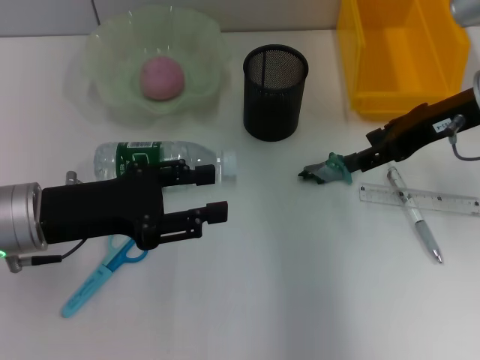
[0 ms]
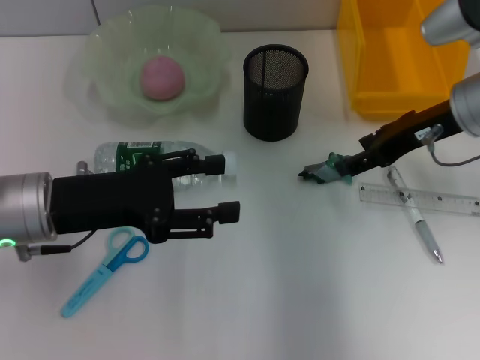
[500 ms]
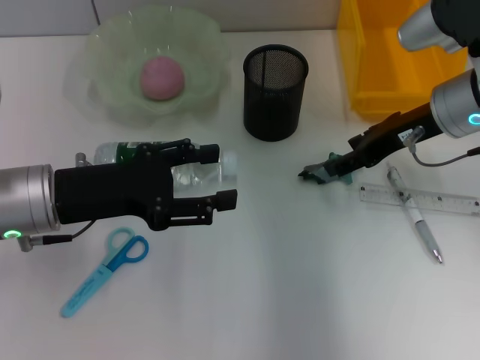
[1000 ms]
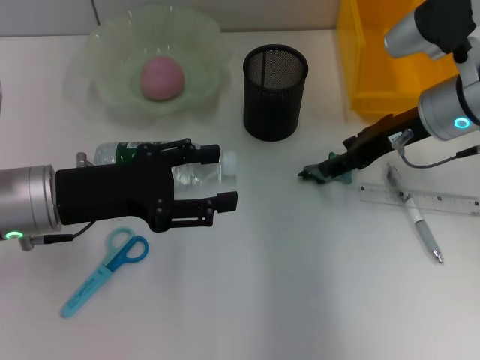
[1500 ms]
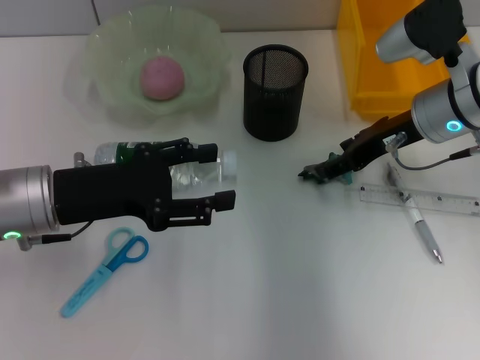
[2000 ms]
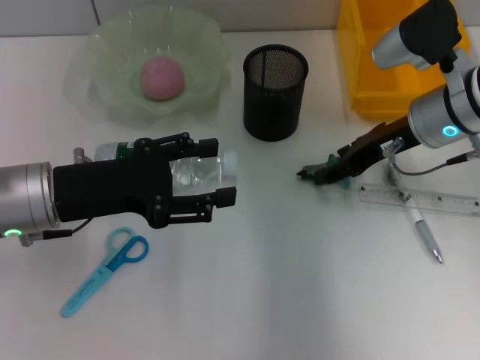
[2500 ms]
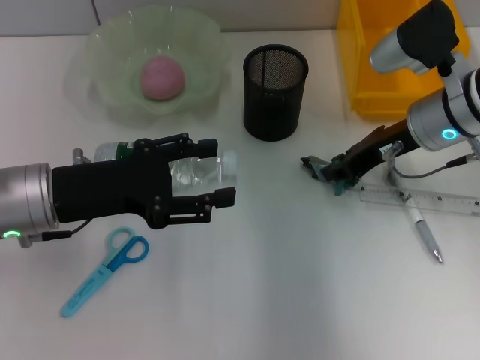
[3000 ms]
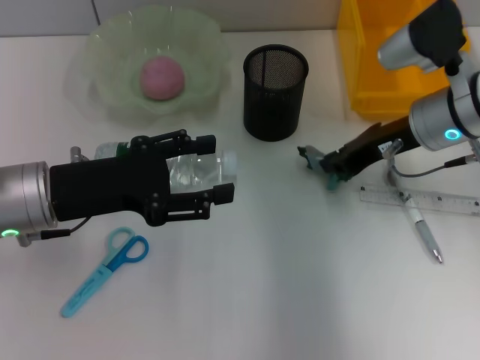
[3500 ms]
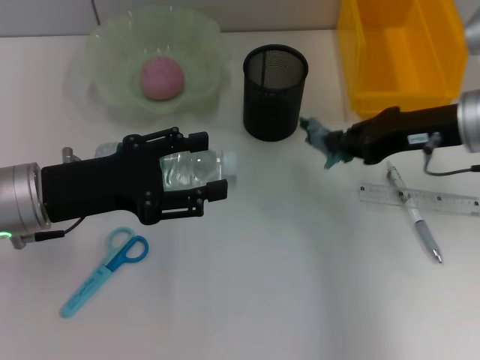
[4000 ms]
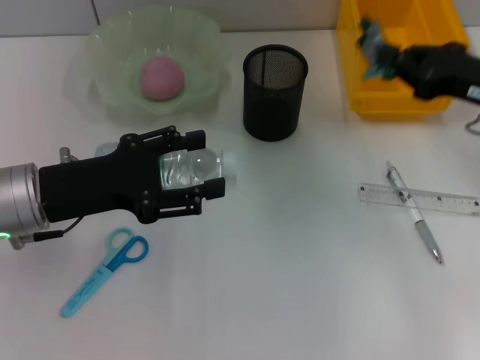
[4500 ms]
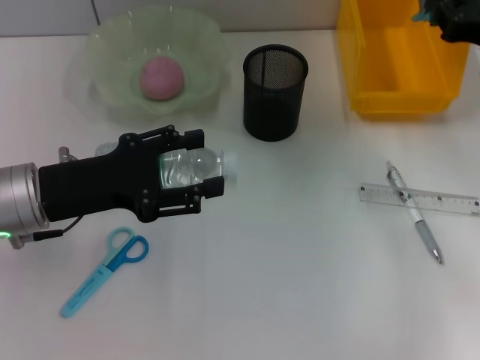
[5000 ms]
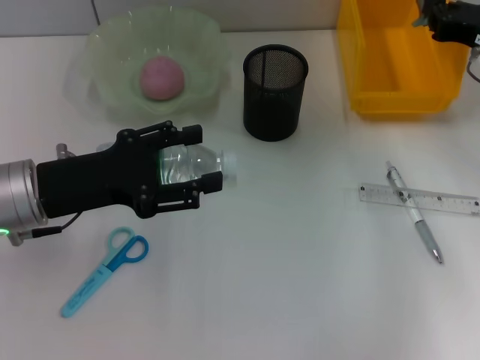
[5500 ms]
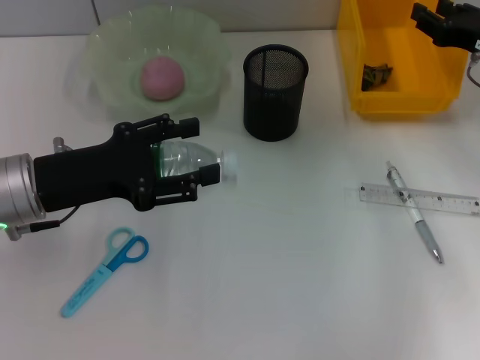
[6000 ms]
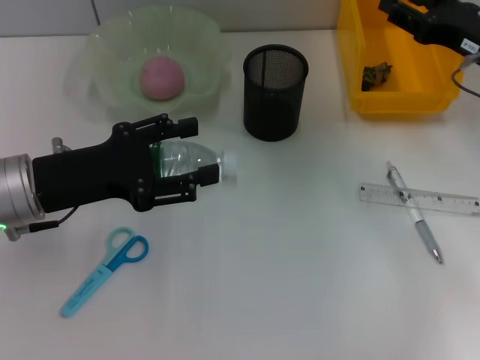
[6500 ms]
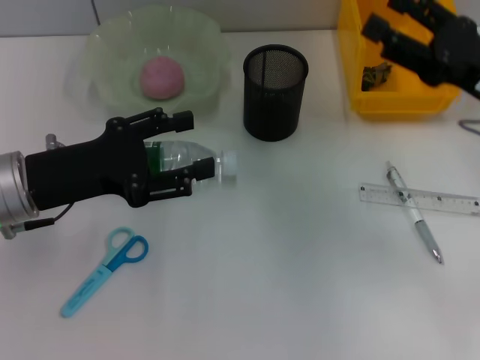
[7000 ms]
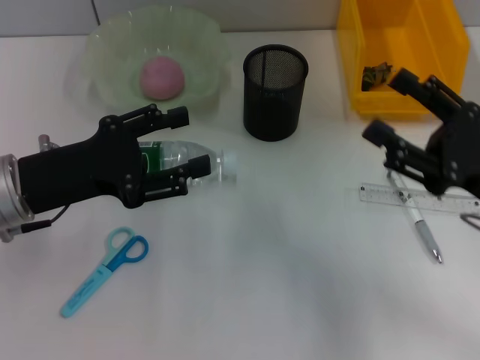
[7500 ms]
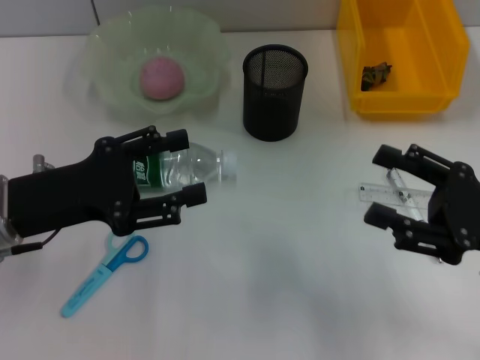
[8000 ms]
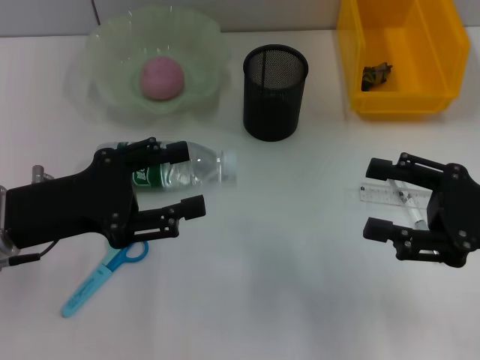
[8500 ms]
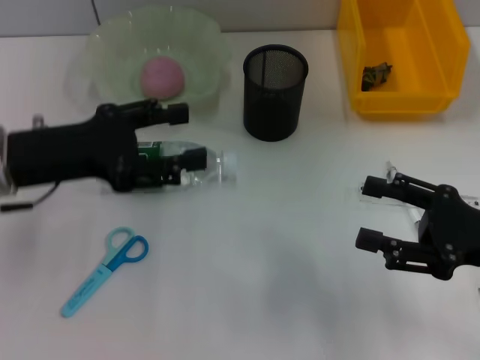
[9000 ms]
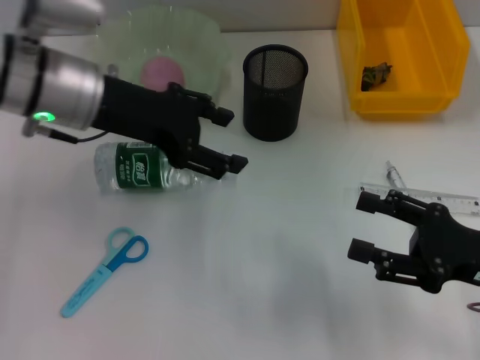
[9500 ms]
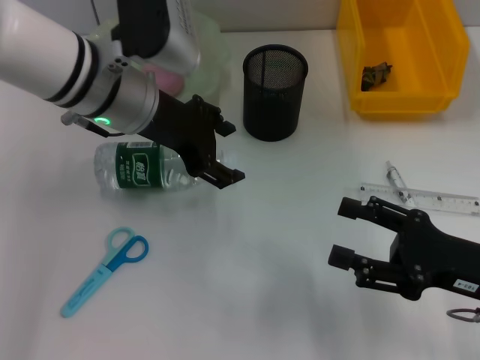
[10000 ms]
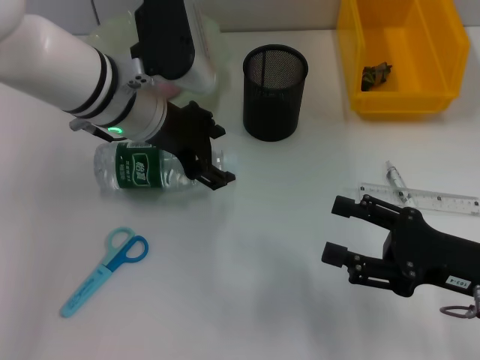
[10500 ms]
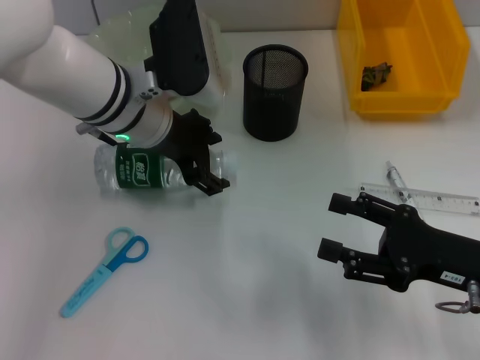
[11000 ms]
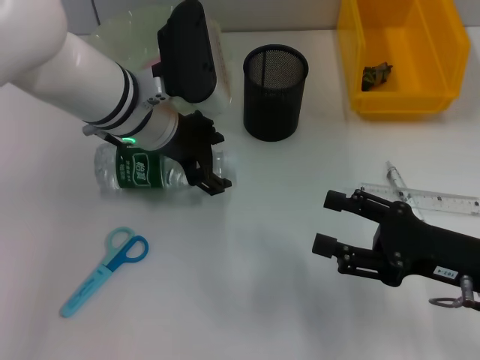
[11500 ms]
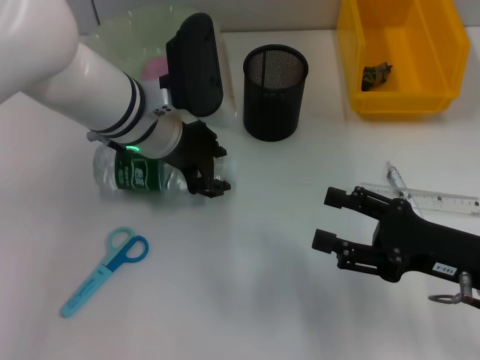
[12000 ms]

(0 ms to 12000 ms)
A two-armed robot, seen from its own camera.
Step, 0 ms - 3000 ms: Grab the plastic with the right hand.
Step, 3500 ms - 5500 ms: Place the plastic into the trash can with the right hand.
0 ms - 2000 ms: The right gripper shifts some 5 cm downward.
2000 ms - 4000 ms: The right gripper shifts by about 5 cm, and closes its fingers.
4000 ms - 6000 ms: The right gripper is displaced to the right by about 5 cm.
6000 ms - 8000 ms: The right gripper travels backward by approximately 15 cm, and opens.
8000 ms - 10000 ms: The left gripper heads to the right, forward and upward, covering roughly 15 cm.
10000 ms - 12000 ms: The left gripper changes place by approximately 5 cm.

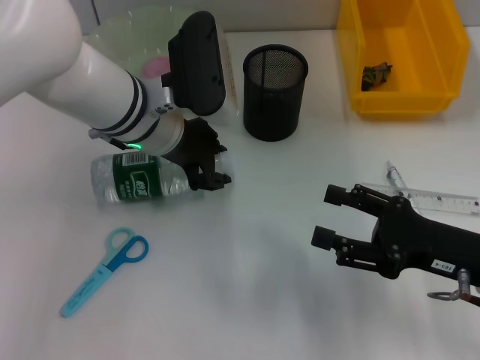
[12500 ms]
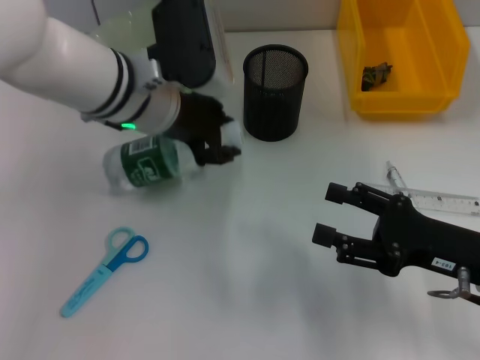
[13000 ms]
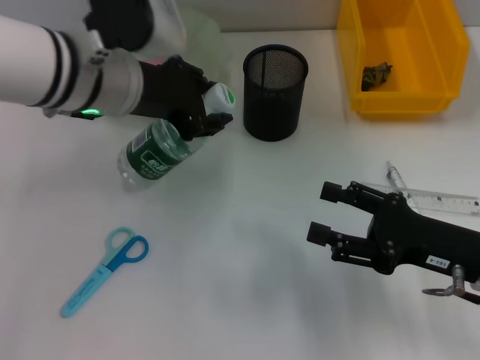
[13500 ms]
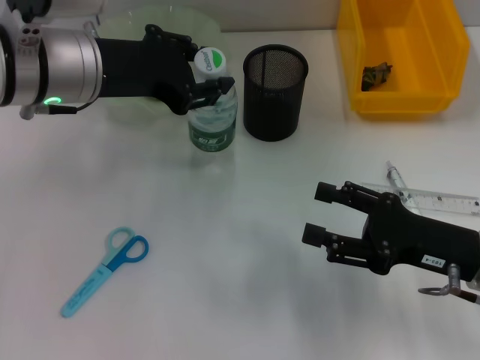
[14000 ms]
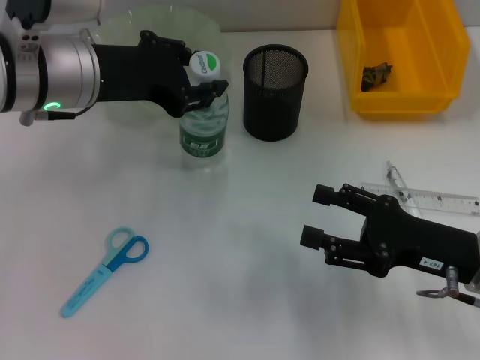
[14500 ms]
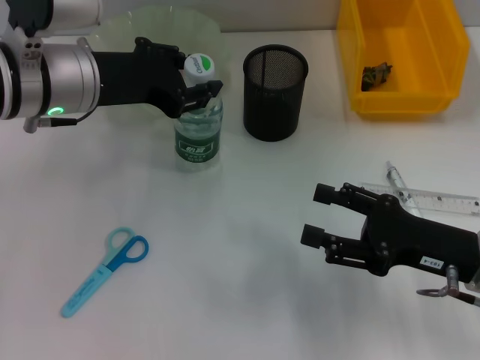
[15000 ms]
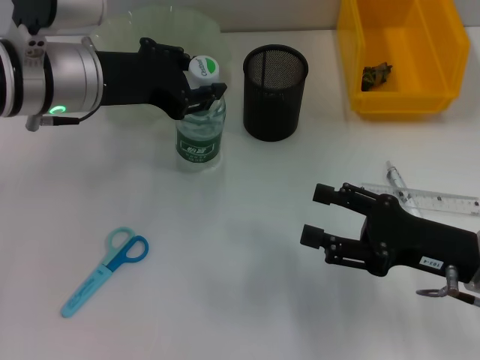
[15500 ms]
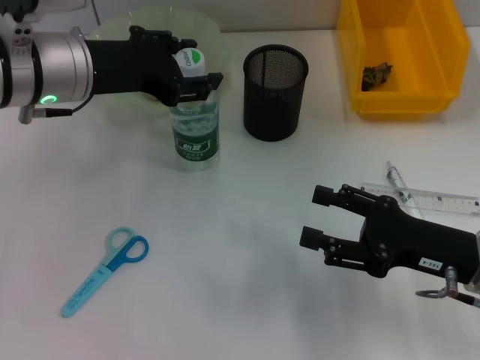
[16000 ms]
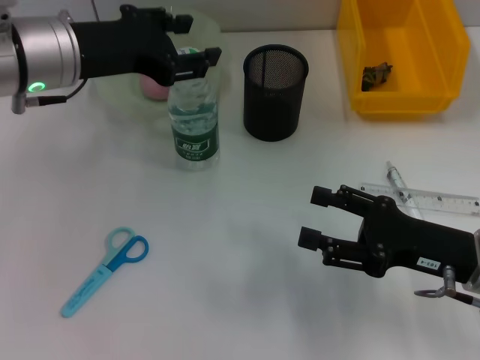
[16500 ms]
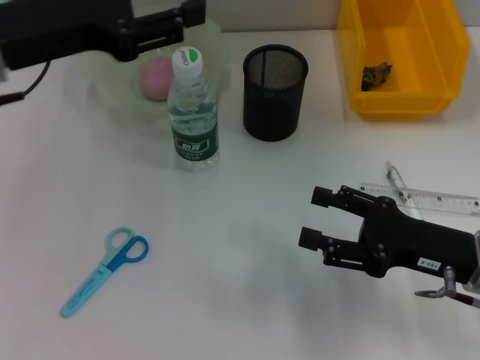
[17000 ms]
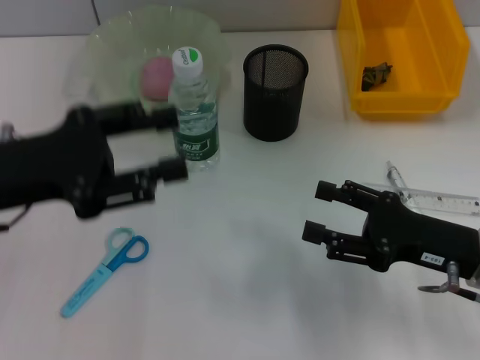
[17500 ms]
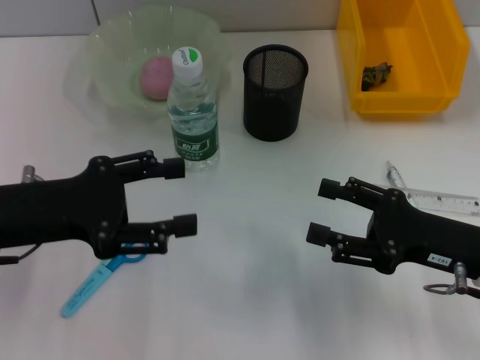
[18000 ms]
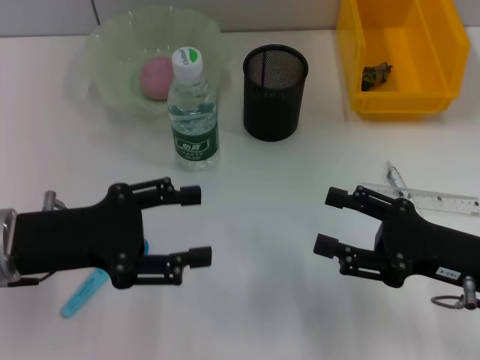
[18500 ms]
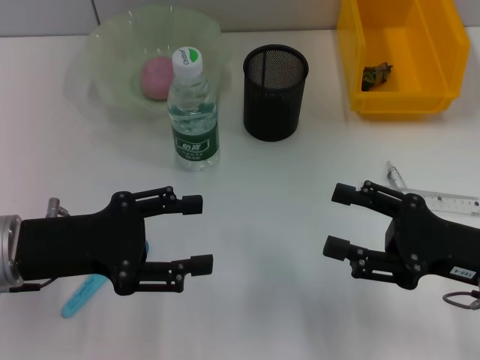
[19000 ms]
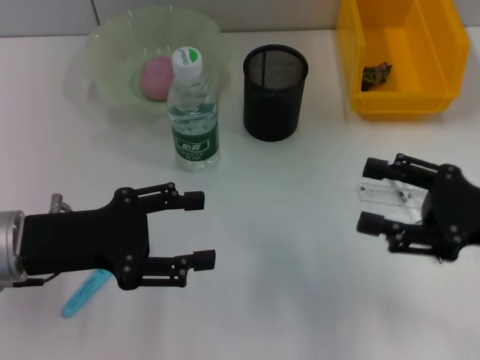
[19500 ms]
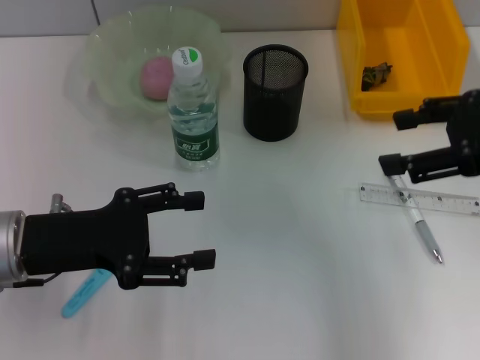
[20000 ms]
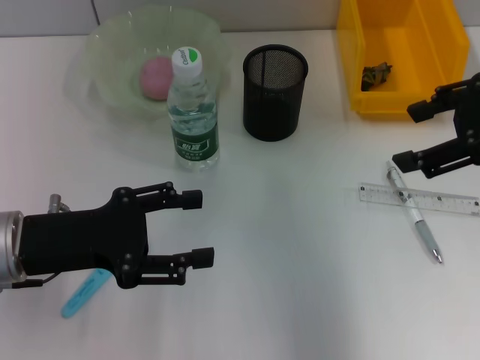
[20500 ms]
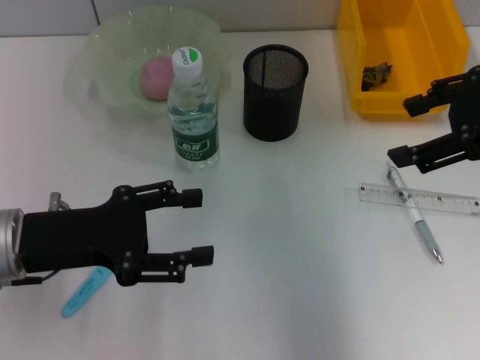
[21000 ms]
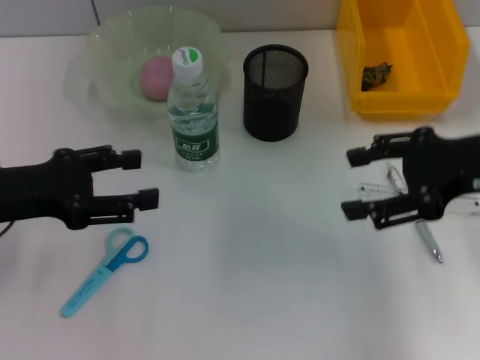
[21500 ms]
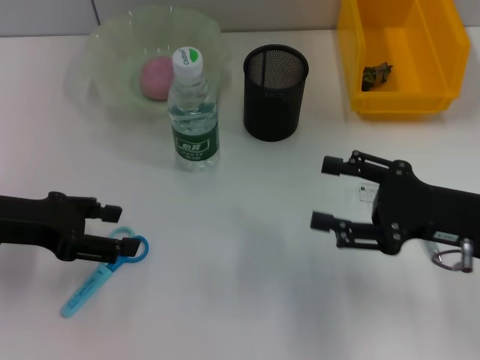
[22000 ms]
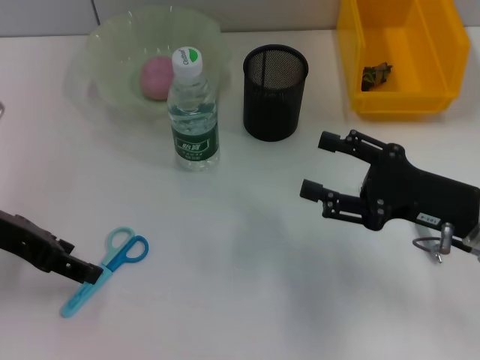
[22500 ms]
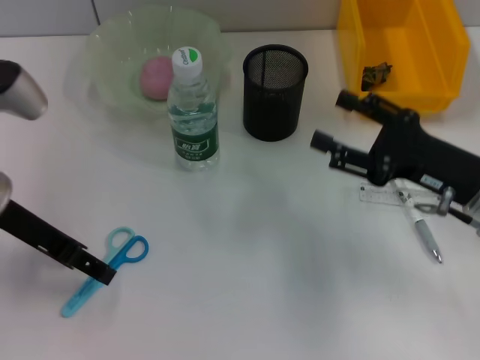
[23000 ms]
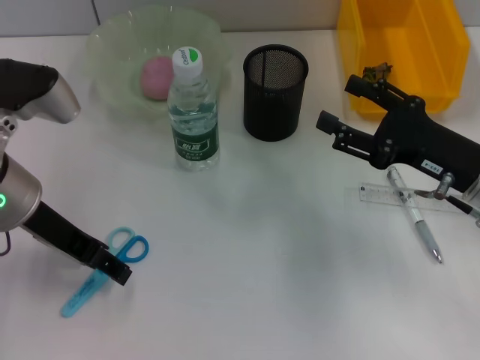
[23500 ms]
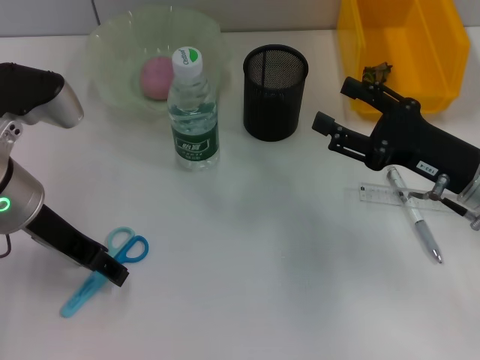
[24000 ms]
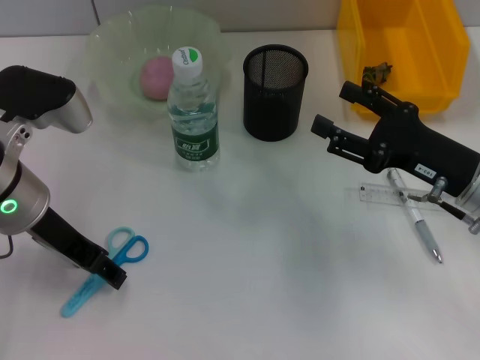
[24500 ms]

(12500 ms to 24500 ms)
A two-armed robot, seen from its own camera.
Step, 12500 ms - 16000 ms: Place the water bottle on the table with the left hand.
12500 ms - 14500 ms: The left gripper travels to the left and upward by approximately 10 cm.
14500 ms - 16500 ms: The grippers move only a little.
16500 ms - 18500 ms: The left gripper is displaced backward, downward and to the left by some 15 cm.
18500 ms - 20500 ms: The right gripper goes some 20 cm upward and forward.
20500 ms - 22500 ms: The right gripper goes approximately 20 cm downward. The left gripper heads forward, covering some 5 cm.
22500 ms - 24500 ms: The left gripper travels to the right by about 5 cm.

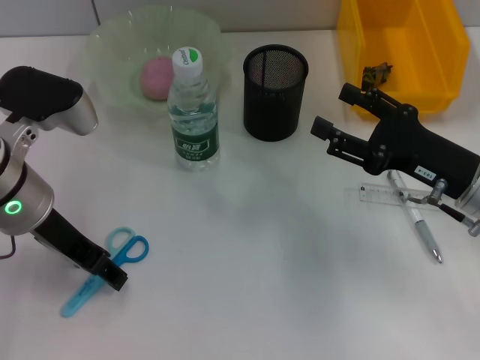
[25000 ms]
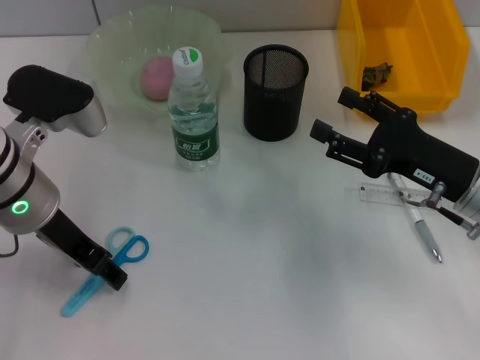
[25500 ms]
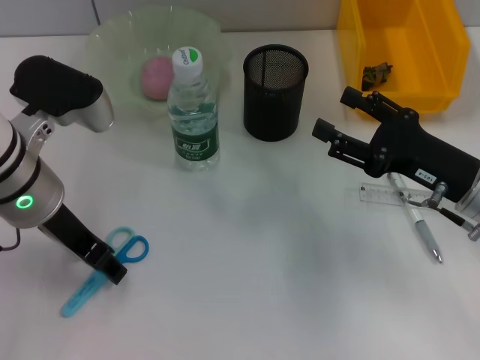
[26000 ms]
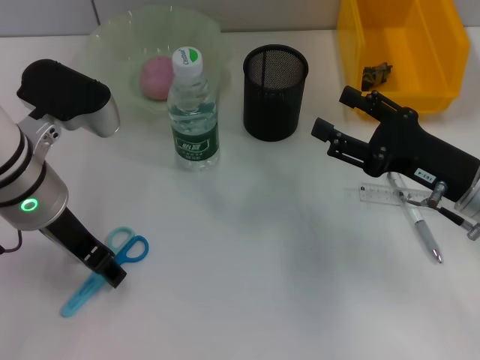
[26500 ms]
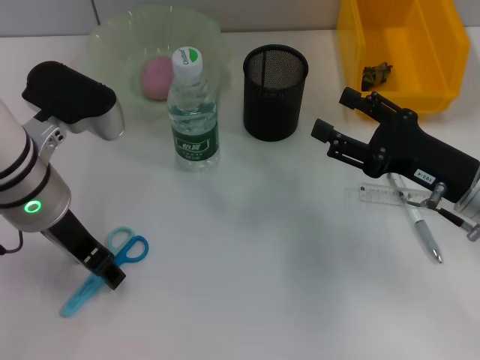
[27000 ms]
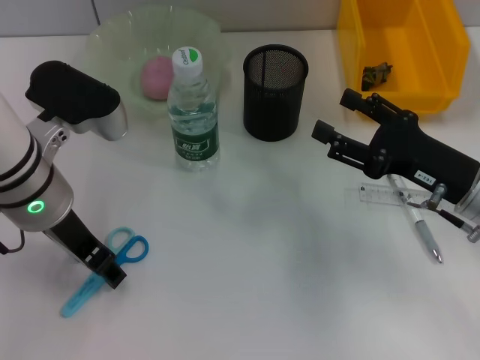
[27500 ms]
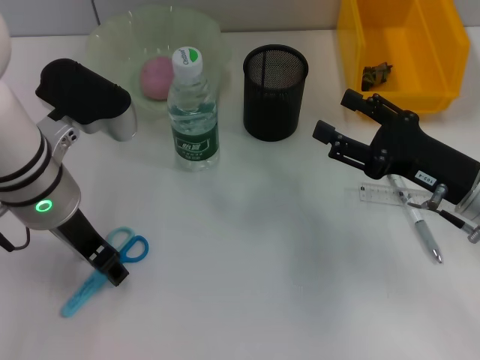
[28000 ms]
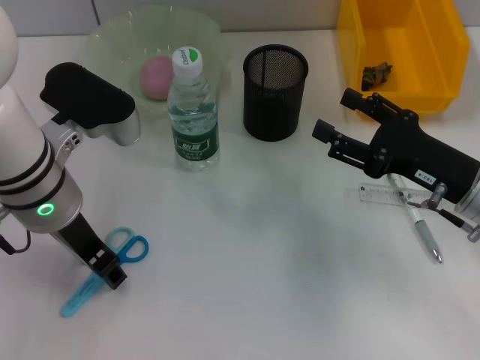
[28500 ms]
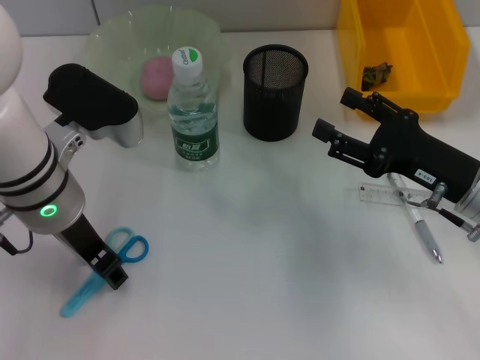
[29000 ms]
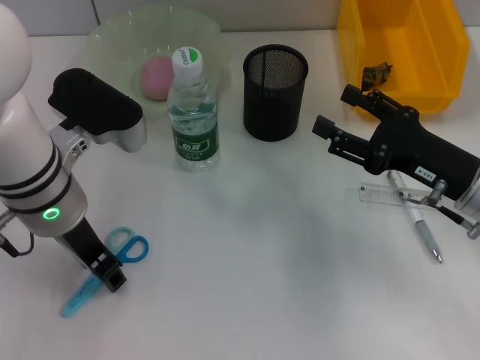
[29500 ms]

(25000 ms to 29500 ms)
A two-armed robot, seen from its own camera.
25000 ms - 29500 ms: The grippers make only small movements.
